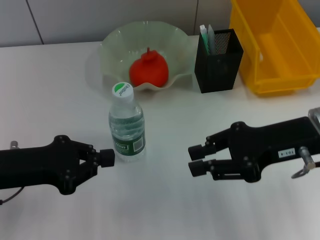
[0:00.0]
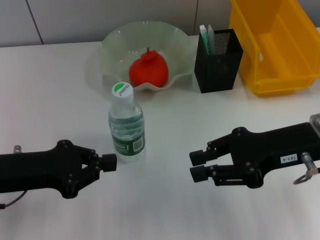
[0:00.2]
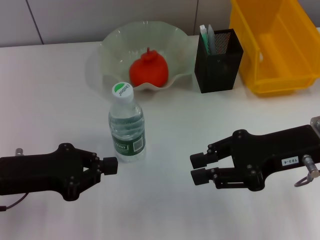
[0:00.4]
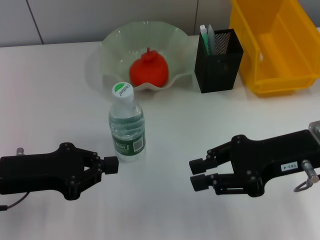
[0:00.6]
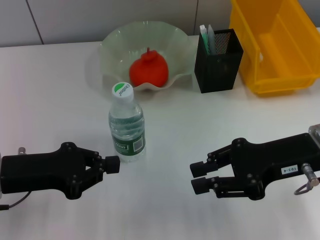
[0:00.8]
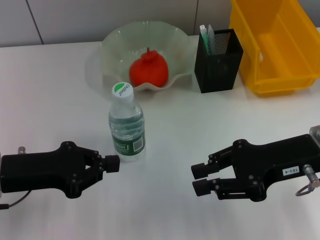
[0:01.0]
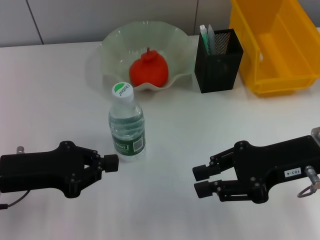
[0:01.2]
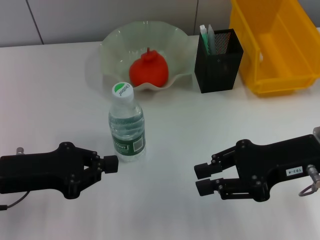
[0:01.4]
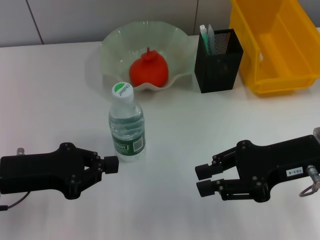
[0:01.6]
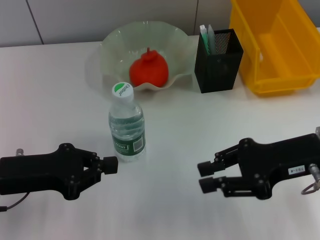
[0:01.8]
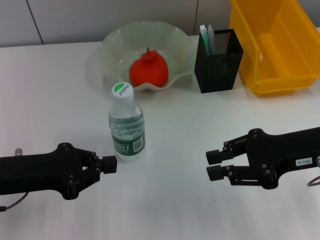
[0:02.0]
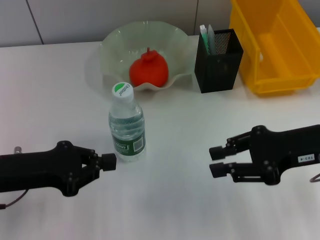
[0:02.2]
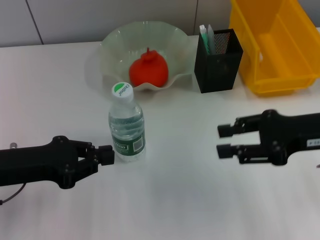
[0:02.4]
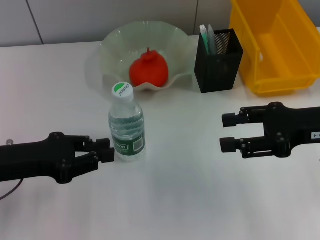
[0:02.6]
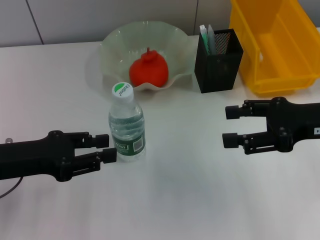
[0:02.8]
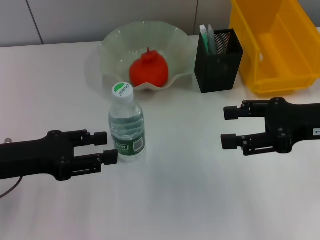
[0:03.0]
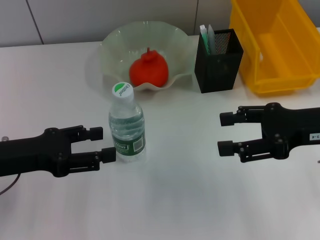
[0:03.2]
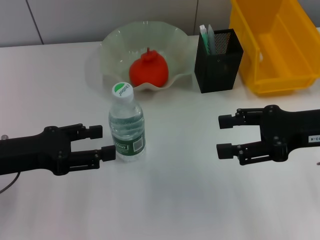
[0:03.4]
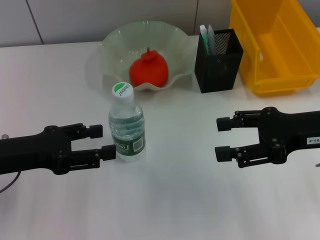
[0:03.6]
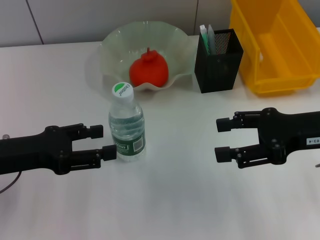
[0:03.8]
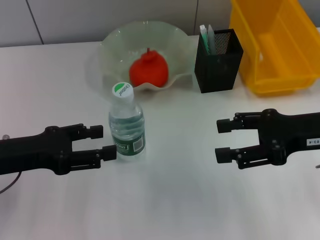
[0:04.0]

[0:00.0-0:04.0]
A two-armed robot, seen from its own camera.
0:00.0 to 0:02.6: The grippers make only small movements.
0:02.6 to 0:04.0: The left gripper opens its fingers. The right gripper opens.
